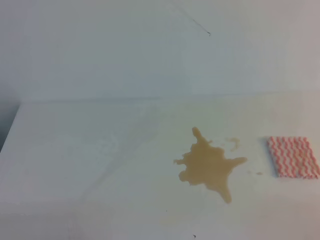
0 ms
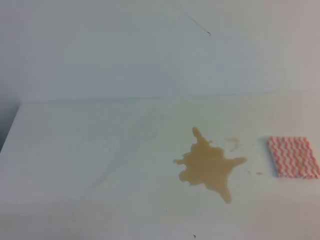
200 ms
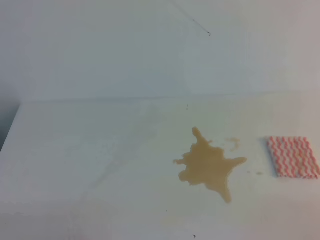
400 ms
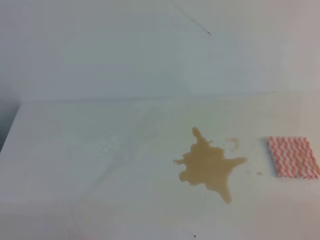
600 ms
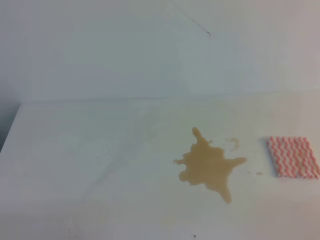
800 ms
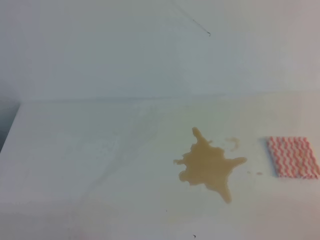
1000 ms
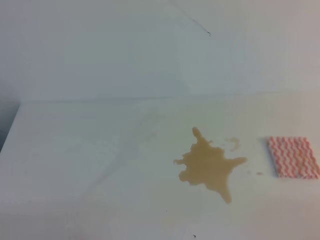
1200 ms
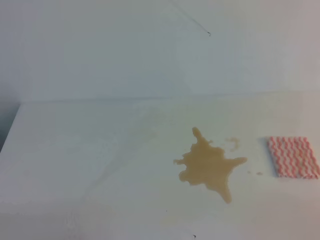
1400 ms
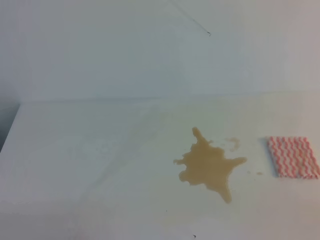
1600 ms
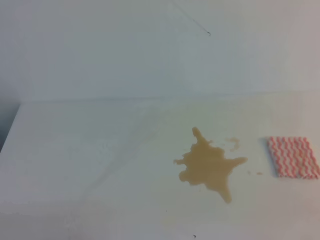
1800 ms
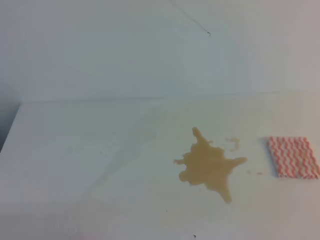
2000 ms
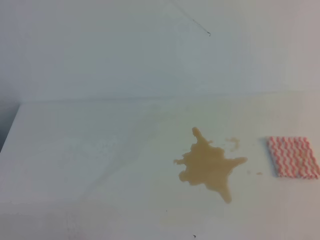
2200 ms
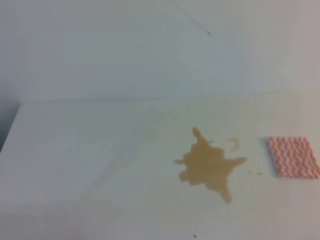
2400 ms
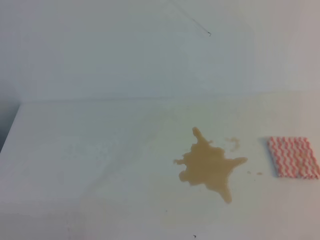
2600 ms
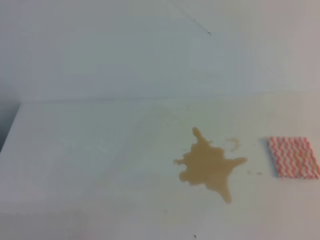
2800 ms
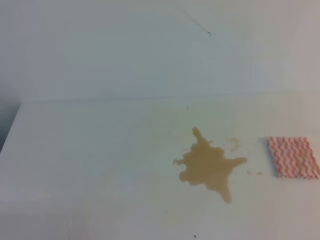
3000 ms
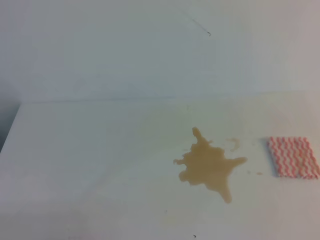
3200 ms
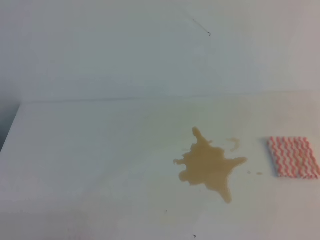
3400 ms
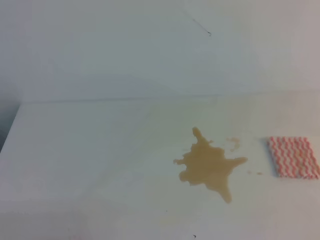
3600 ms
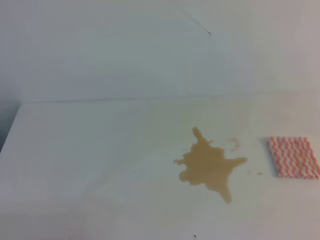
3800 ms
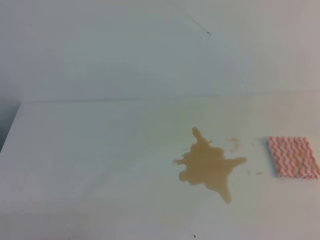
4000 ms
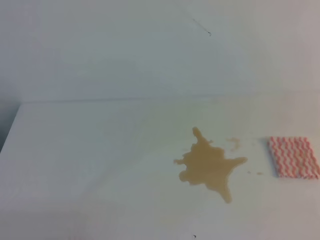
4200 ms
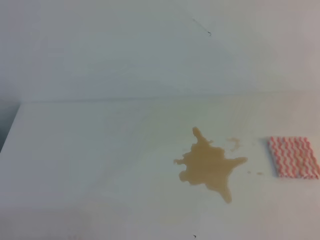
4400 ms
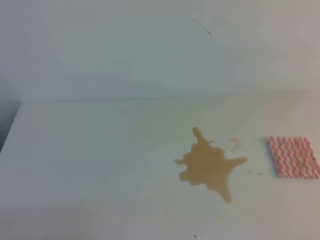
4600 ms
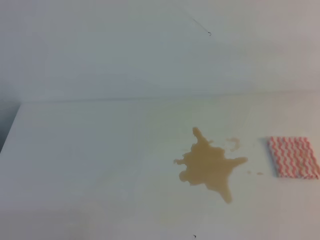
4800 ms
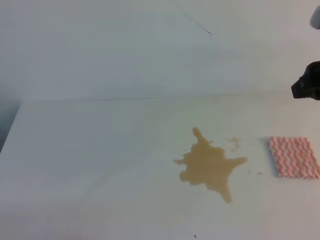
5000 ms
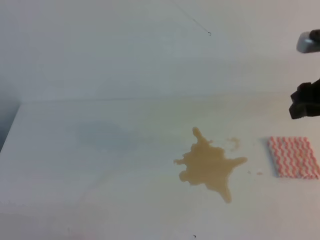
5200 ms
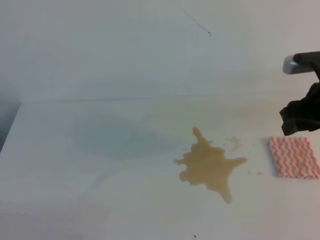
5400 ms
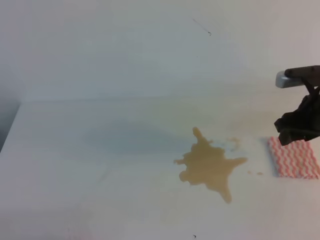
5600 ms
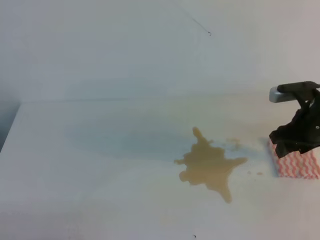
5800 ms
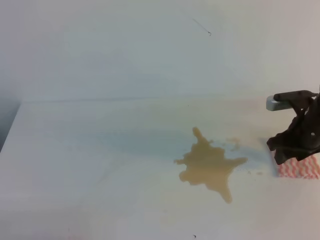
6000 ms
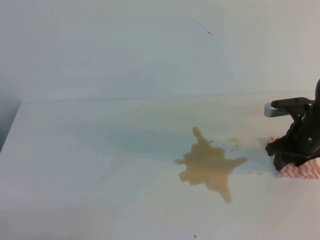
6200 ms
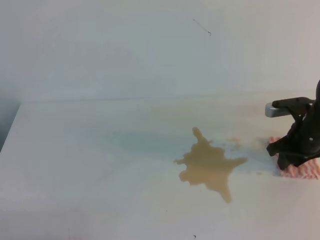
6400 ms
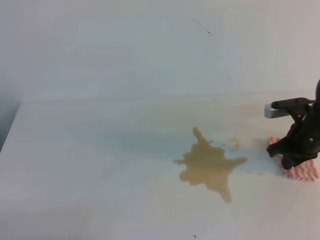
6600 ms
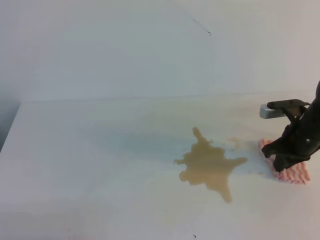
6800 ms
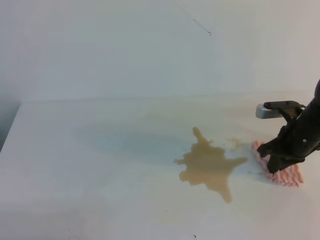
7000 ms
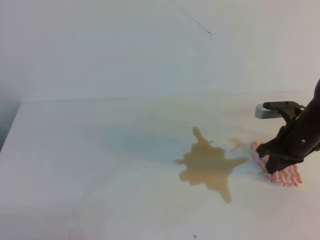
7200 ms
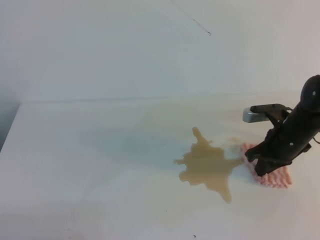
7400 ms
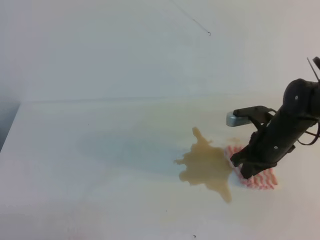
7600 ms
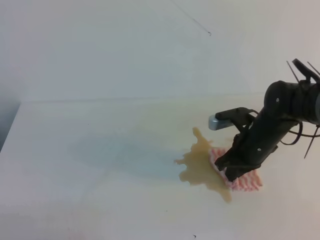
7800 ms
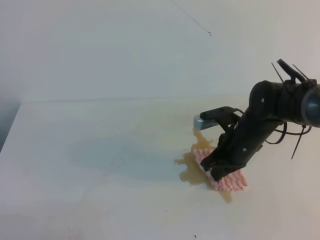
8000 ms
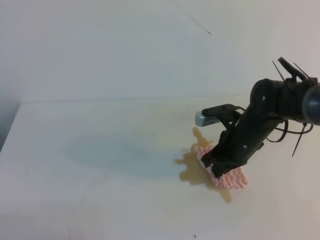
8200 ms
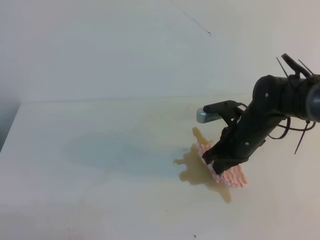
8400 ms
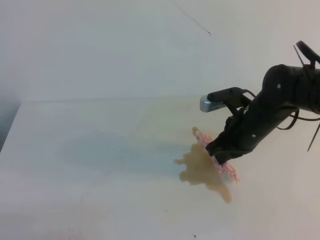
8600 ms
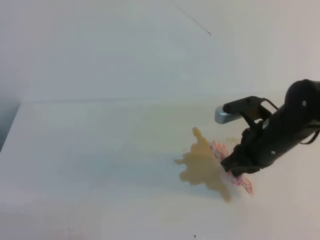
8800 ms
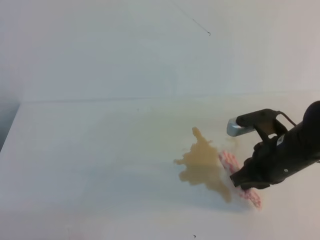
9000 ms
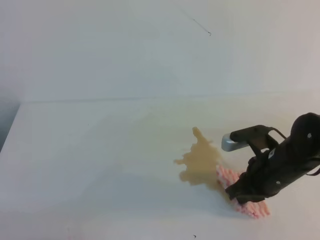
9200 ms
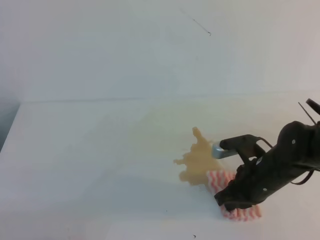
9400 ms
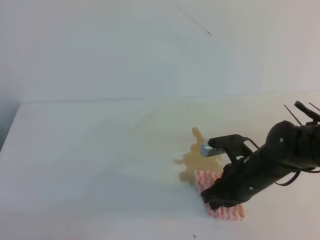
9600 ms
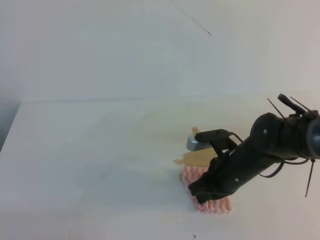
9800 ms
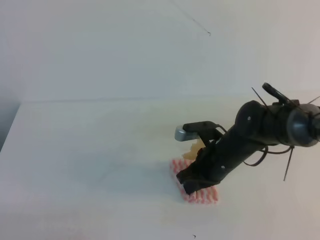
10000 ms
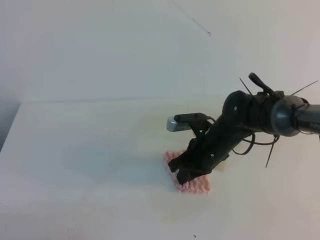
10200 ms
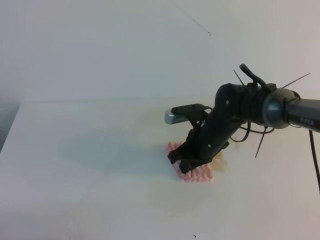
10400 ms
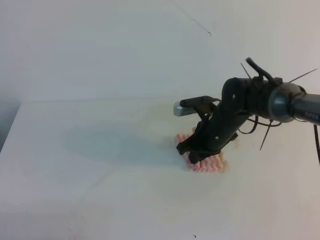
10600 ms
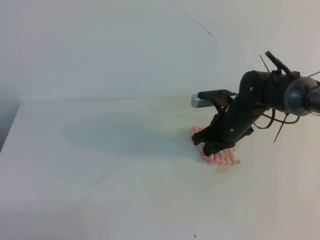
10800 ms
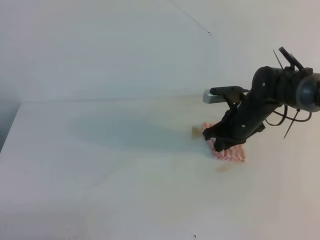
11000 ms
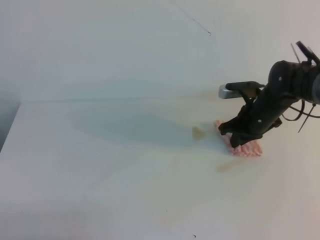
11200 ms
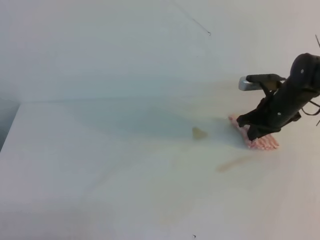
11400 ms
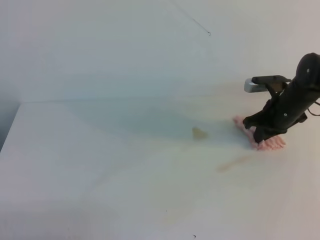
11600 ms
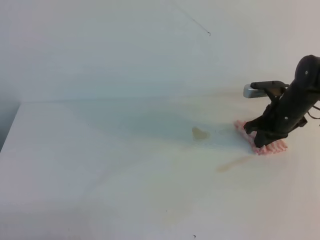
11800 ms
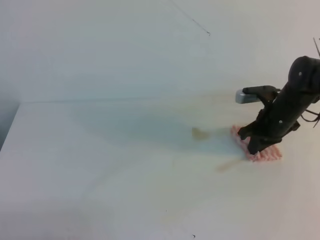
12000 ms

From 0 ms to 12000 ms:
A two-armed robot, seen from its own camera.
From 4400 ms to 6000 ms: The right gripper goes approximately 30 cm downward and forward, and opens its fingers.
From 6000 ms to 7600 ms: The right gripper goes approximately 5 cm to the left, and closes its fingers.
From 7600 ms to 9000 ms: The right gripper heads backward, covering roughly 5 cm.
From 9000 ms to 10400 ms: The right gripper heads to the left, forward and downward, covering some 15 cm.
From 10400 ms to 12000 ms: The right gripper heads to the right and forward, covering some 15 cm.

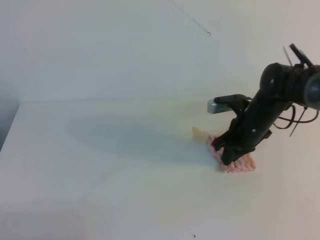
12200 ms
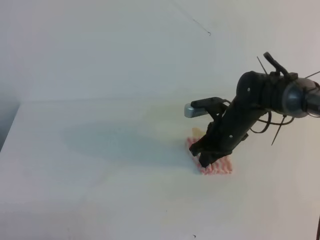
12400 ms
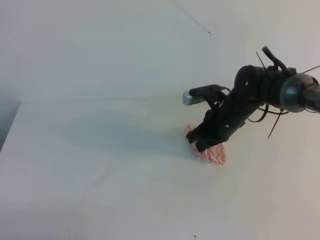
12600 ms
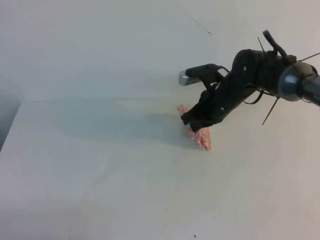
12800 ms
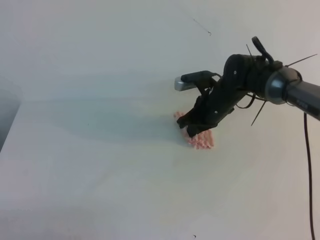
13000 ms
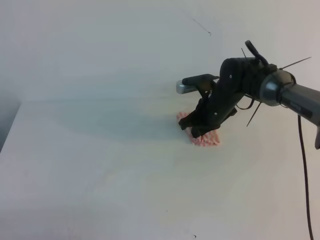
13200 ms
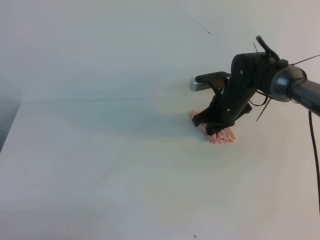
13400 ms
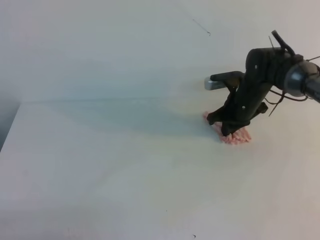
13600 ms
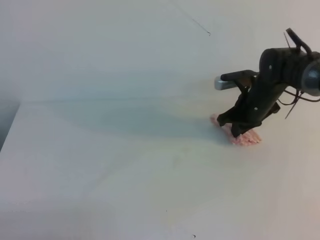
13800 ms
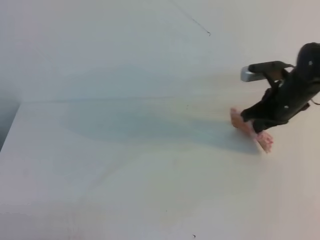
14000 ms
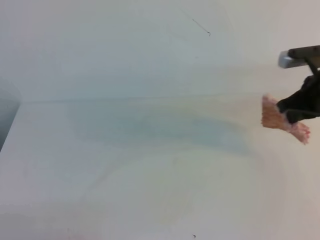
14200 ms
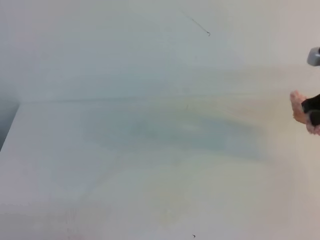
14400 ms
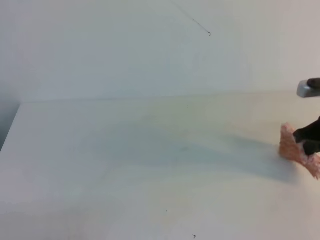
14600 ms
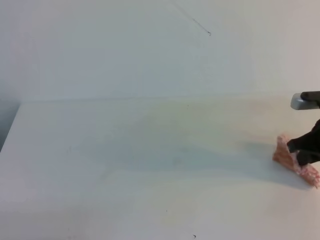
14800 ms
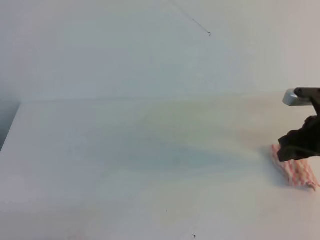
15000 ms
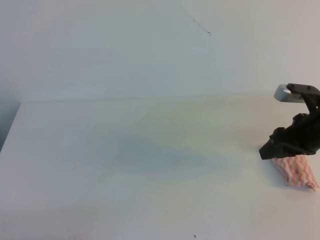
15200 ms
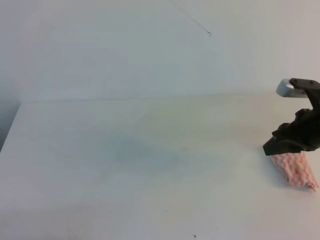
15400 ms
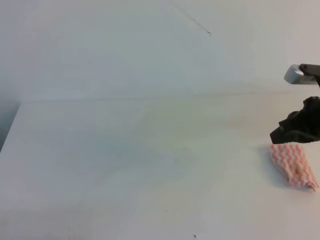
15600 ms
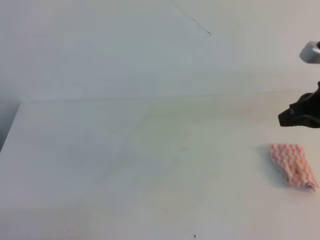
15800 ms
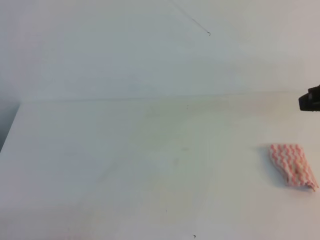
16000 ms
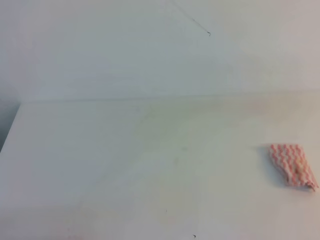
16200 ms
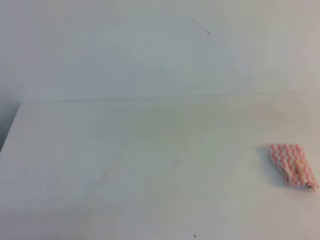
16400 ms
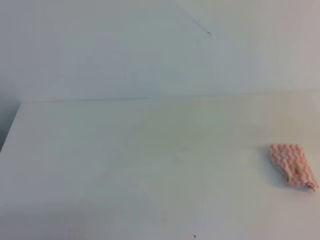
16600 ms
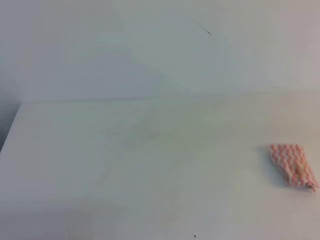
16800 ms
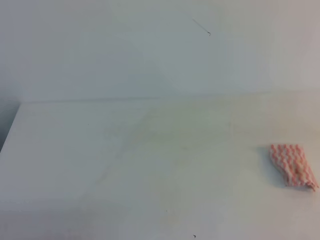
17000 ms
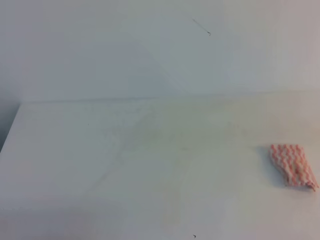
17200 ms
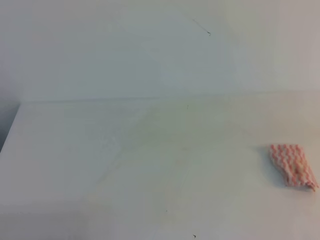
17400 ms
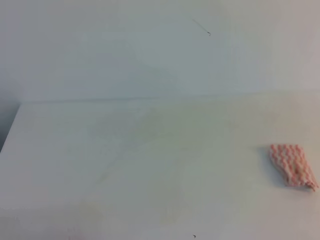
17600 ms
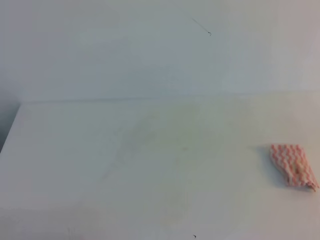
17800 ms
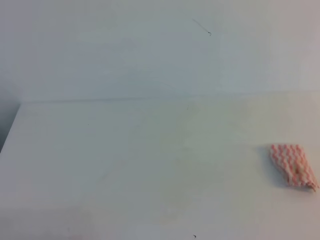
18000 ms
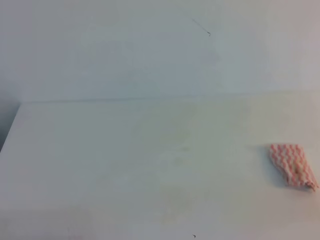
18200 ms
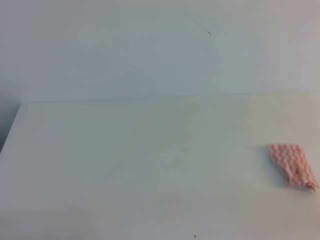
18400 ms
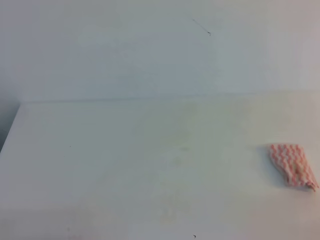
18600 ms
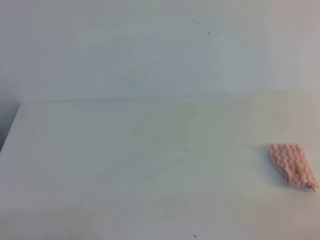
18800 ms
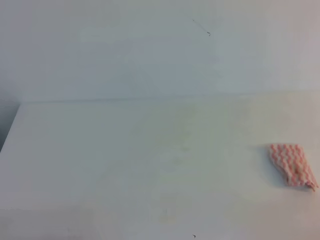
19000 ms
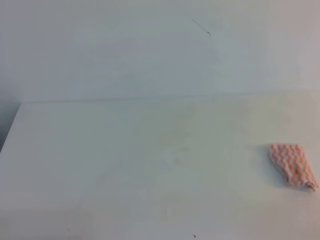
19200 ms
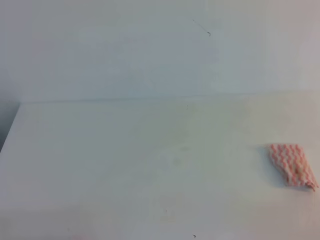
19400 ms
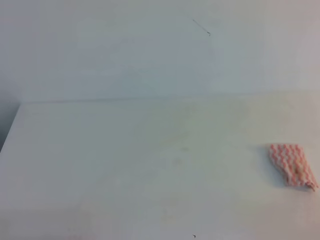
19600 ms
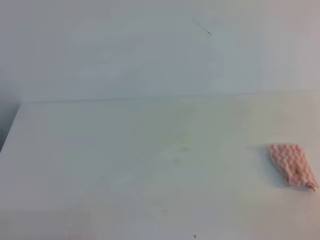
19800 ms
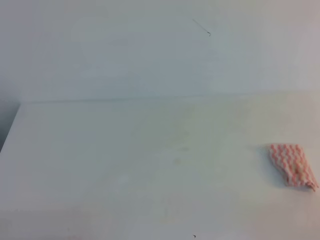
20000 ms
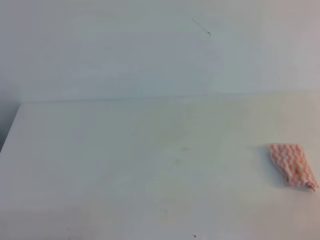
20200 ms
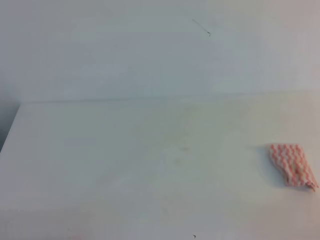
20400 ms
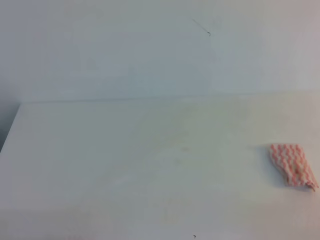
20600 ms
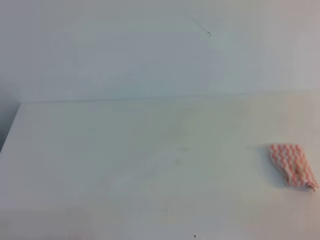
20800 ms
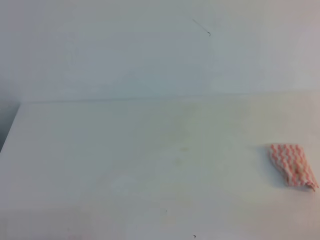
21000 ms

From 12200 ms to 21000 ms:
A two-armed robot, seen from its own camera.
From 12200 ms to 13600 ms: The right gripper heads forward, covering approximately 5 cm.
From 13600 ms to 15200 ms: The right gripper goes about 15 cm backward and to the right, and opens.
From 15200 ms to 16600 ms: The right gripper is displaced backward and upward by approximately 20 cm, and closes up.
From 19600 ms to 21000 ms: Both grippers stay put.
